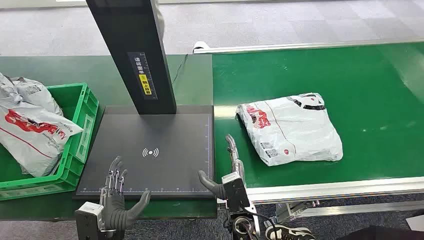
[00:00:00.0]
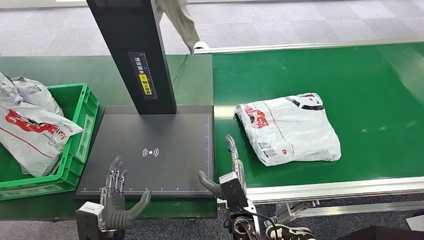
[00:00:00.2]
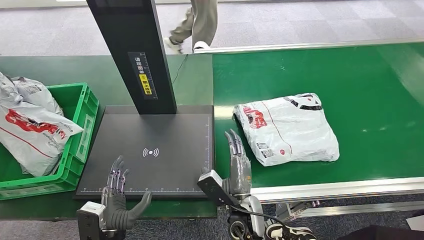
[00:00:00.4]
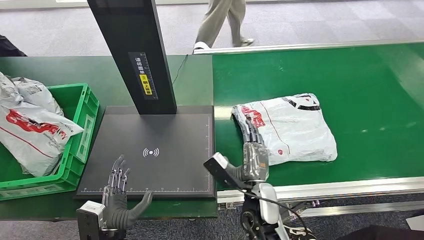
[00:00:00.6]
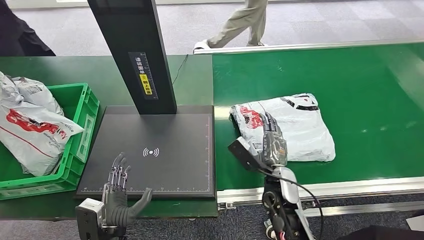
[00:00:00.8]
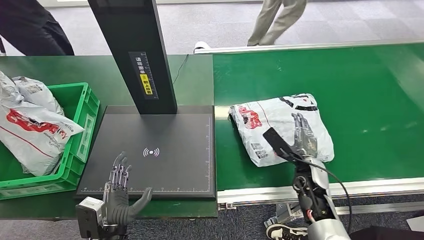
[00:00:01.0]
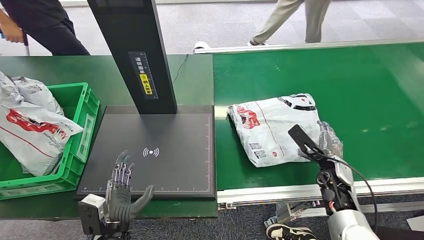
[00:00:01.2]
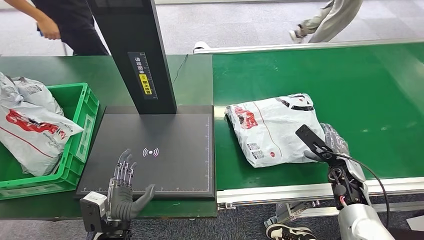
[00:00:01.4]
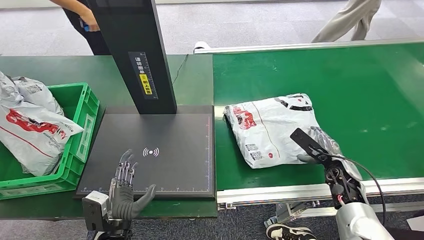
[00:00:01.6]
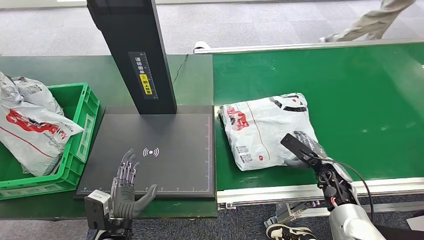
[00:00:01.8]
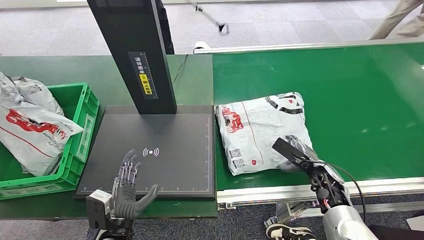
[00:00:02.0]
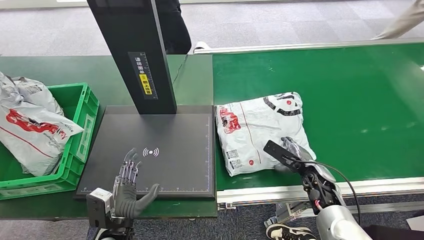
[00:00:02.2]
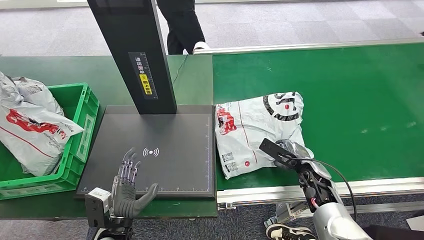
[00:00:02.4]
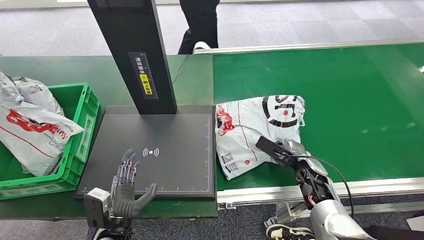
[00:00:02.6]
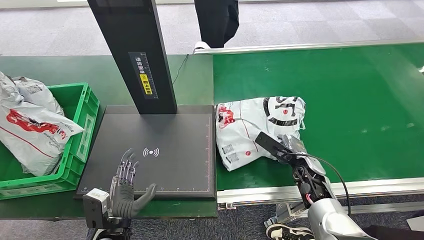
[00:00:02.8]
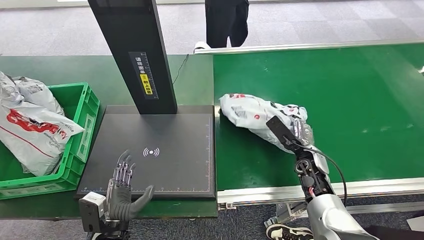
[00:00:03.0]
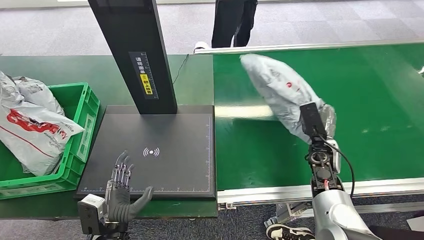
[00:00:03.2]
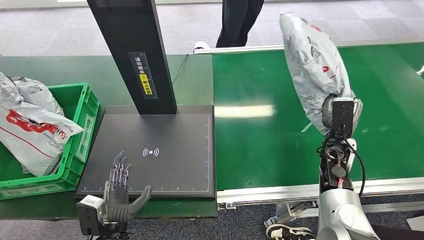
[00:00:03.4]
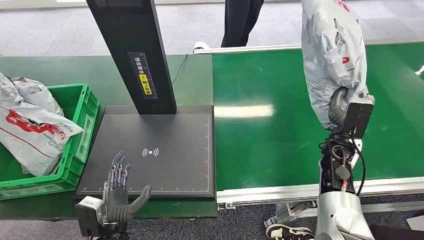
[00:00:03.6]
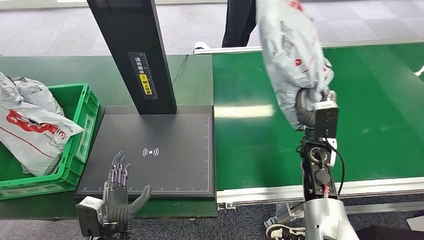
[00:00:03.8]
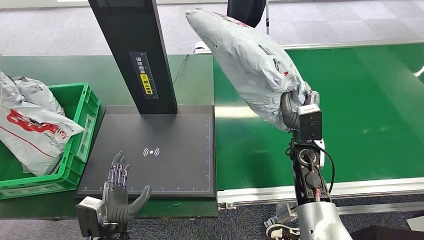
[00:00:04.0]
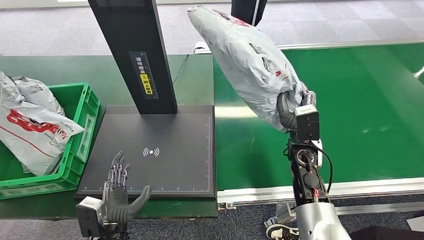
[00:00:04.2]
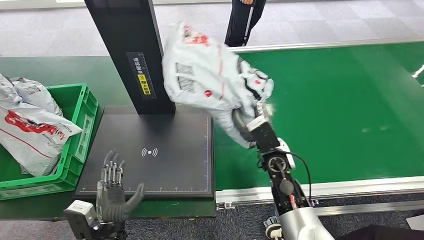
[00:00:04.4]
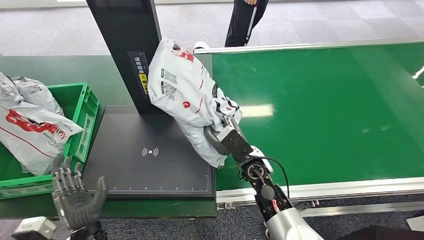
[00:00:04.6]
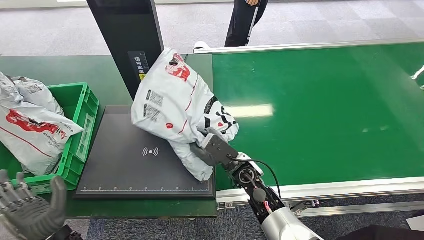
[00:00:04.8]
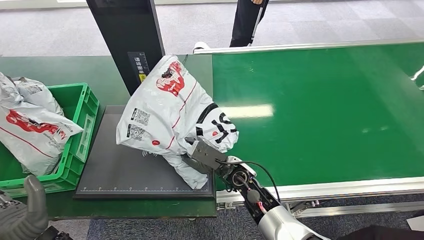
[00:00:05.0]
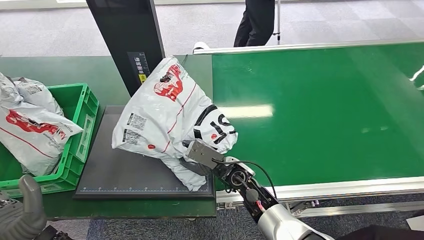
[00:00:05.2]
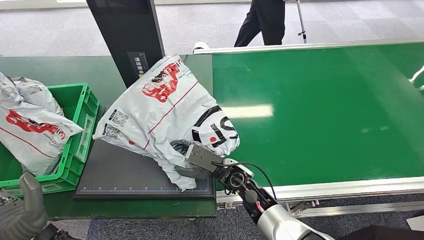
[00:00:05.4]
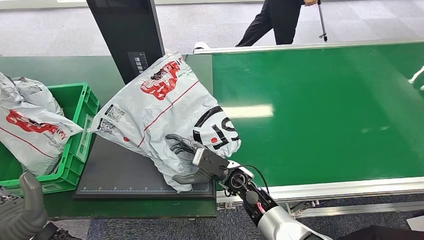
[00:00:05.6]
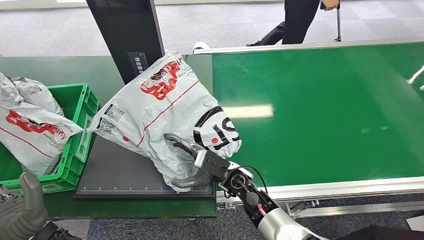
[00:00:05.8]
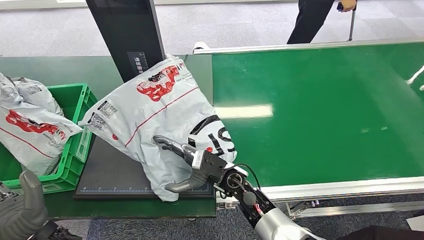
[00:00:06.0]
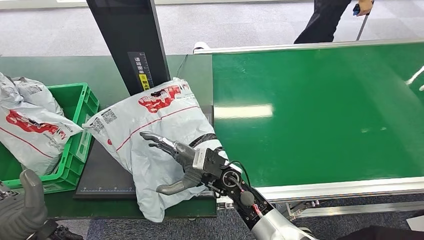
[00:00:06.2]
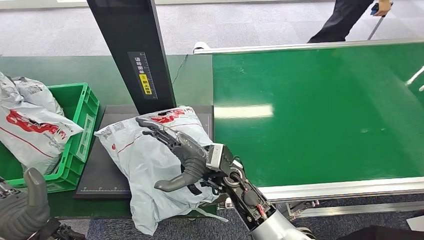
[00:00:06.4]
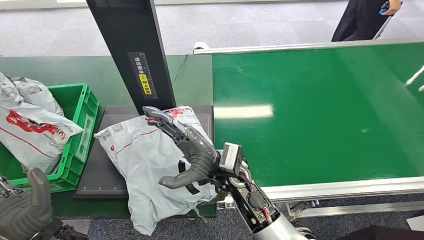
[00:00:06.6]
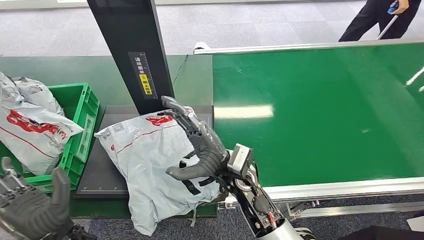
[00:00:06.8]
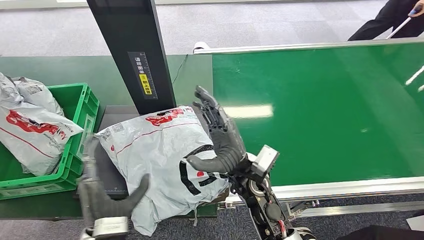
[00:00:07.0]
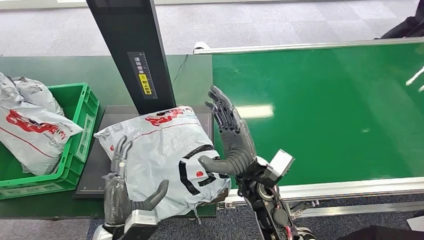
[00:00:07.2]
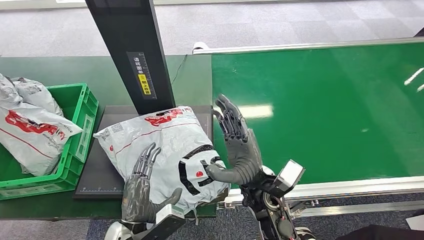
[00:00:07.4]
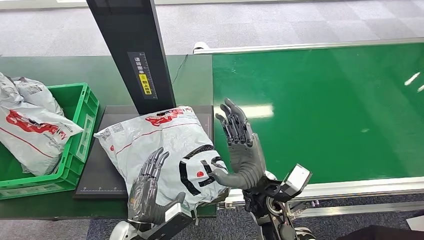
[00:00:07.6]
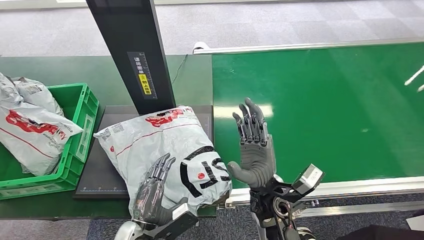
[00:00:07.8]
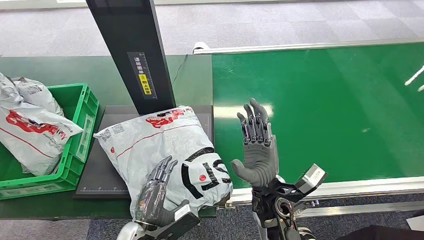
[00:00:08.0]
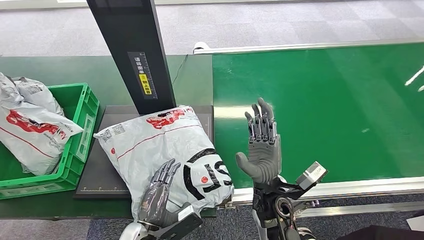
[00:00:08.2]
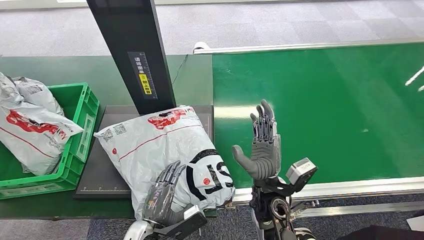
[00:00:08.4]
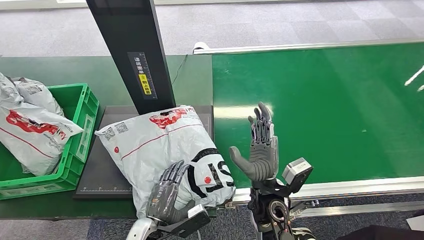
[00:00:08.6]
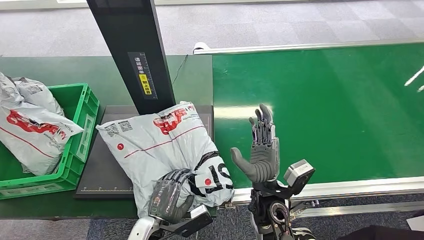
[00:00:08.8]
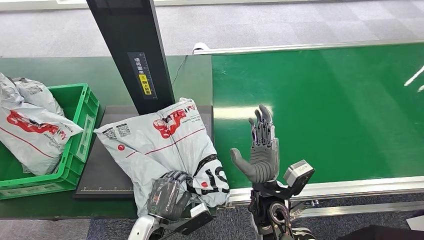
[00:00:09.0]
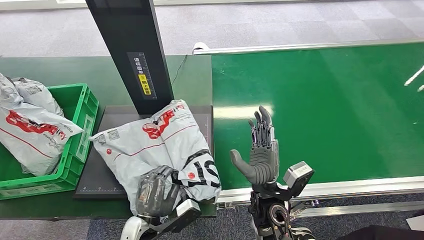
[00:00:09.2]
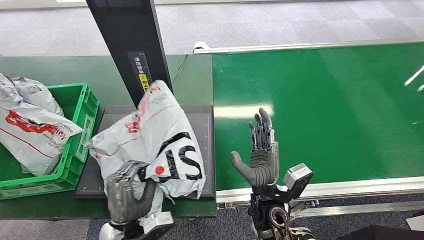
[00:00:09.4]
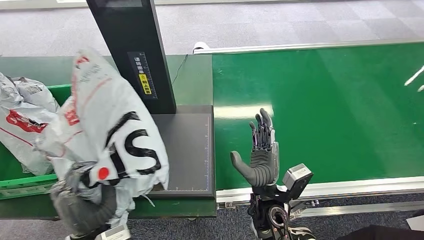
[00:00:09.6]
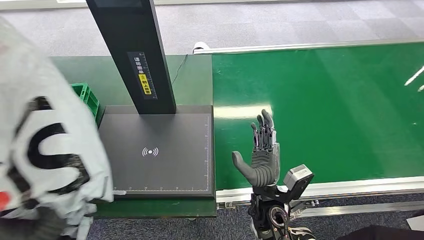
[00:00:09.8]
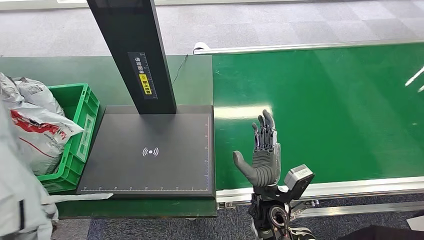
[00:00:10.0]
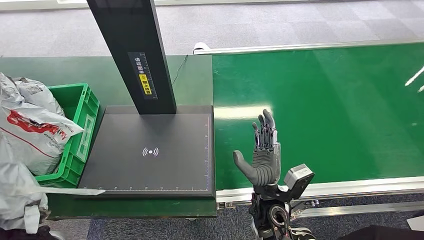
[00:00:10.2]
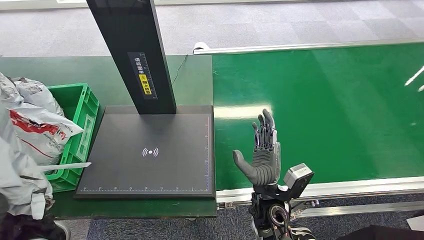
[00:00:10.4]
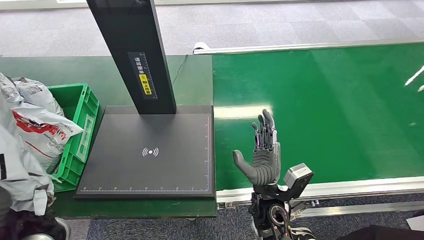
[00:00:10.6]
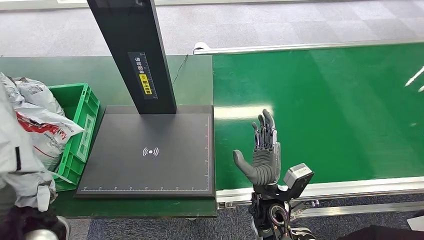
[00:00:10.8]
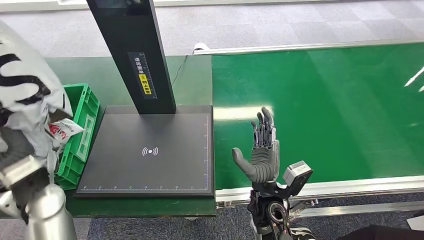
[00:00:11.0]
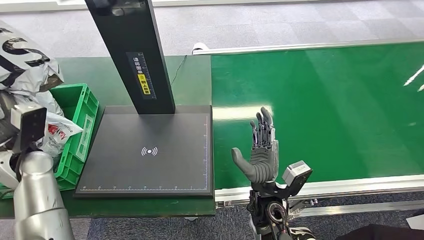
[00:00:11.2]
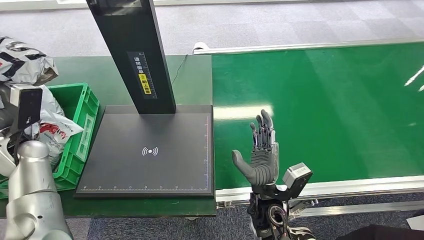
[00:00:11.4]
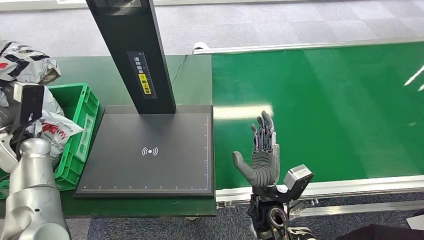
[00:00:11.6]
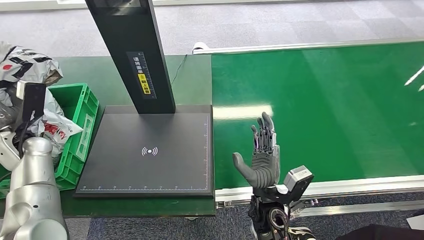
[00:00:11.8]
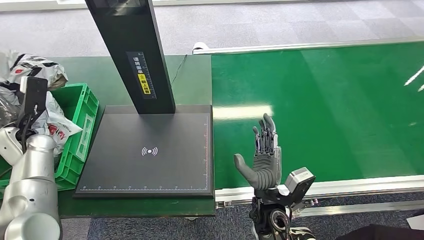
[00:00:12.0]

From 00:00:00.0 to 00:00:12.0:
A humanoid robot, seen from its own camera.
Step, from 00:00:00.0 to 00:00:03.6: Pick up the package from the conveyor belt.
Step, from 00:00:03.8 to 00:00:07.4: Place the package onto the inbound machine.
Step, from 00:00:07.6 to 00:00:10.0: Pick up the package from the inbound machine.
From 00:00:01.6 to 00:00:03.0: The right hand moves to the left, roughly 10 cm.
From 00:00:07.6 to 00:00:09.0: The left hand shifts some 5 cm downward.
From 00:00:09.0 to 00:00:10.4: The left hand is displaced upward and to the left by about 25 cm.
From 00:00:10.4 to 00:00:12.0: The left hand goes roughly 25 cm forward and to the left.

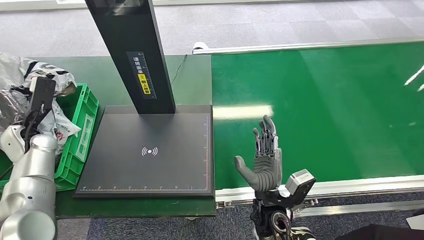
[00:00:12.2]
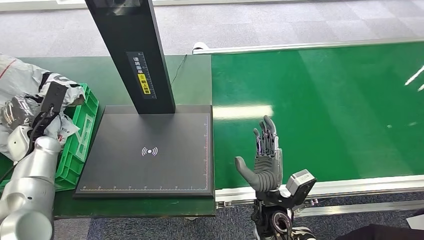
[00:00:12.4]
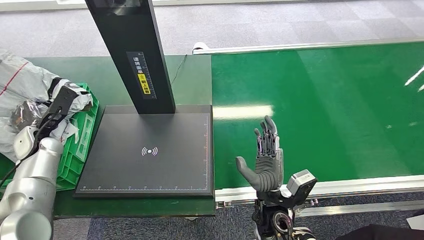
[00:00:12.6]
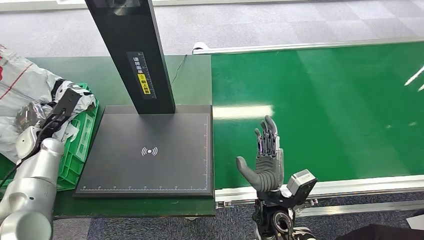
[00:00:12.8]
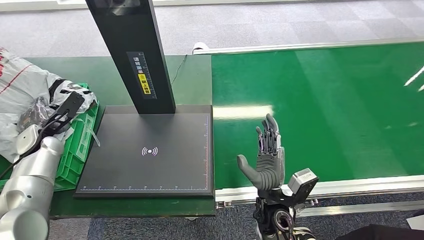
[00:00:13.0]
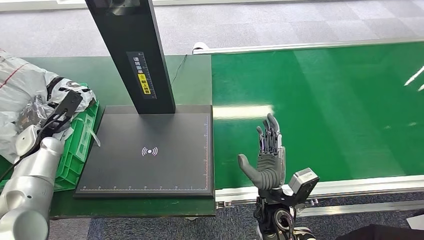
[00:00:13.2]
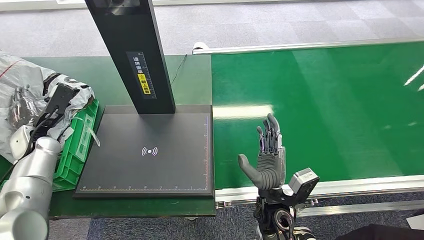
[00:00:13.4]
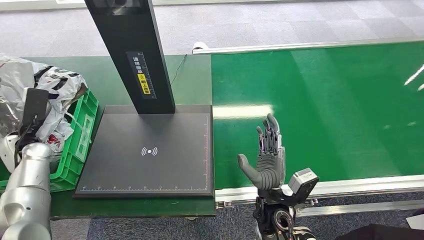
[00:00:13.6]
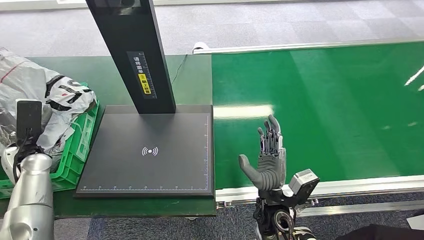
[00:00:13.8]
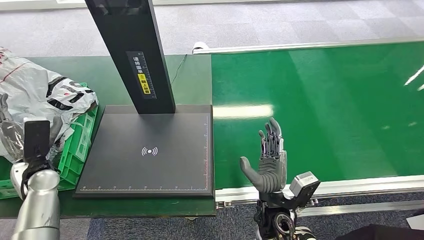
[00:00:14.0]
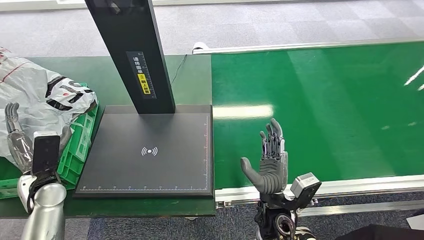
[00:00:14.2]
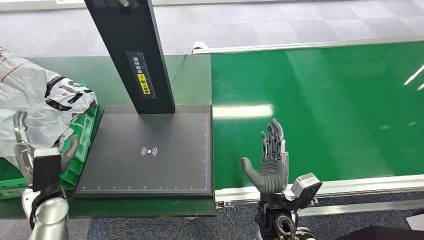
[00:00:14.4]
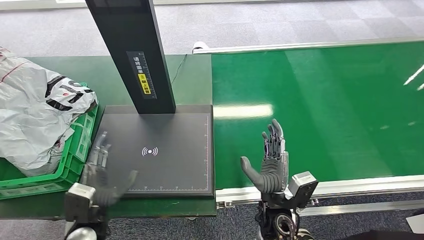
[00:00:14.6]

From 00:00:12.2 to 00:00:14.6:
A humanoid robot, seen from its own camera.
Step, from 00:00:12.2 to 00:00:14.6: Place the package into the parcel locker.
From 00:00:13.4 to 00:00:14.6: The left hand shifts some 25 cm backward, to the right and downward.
